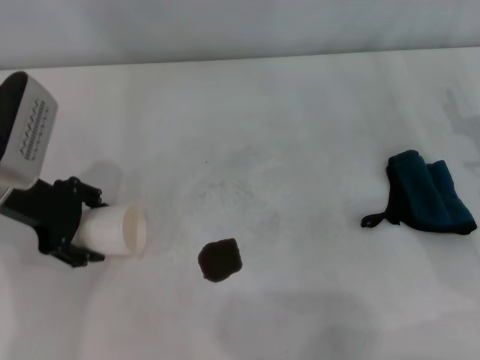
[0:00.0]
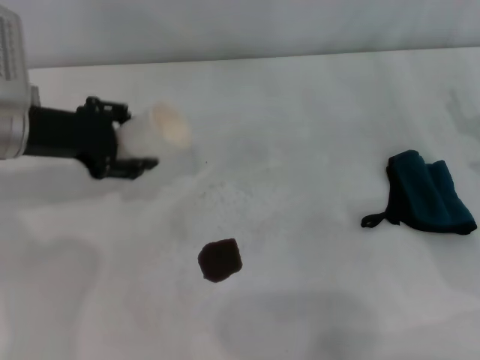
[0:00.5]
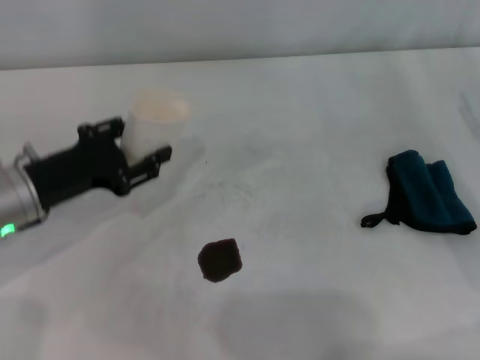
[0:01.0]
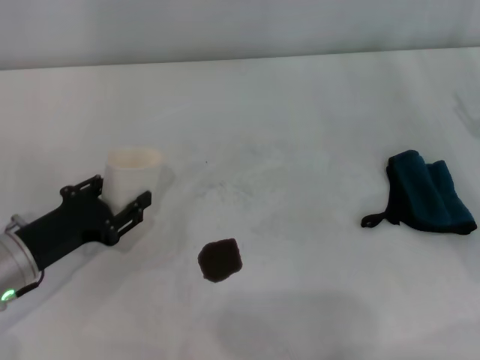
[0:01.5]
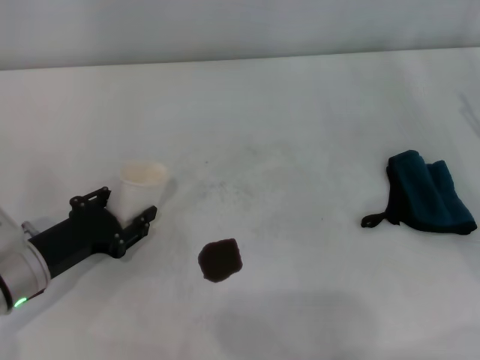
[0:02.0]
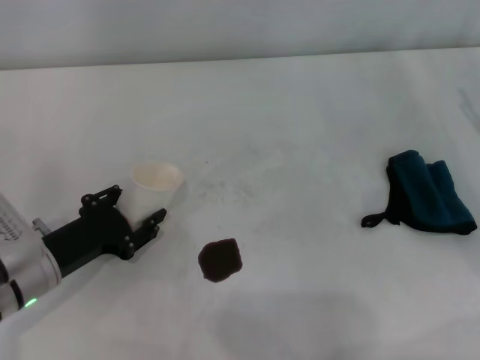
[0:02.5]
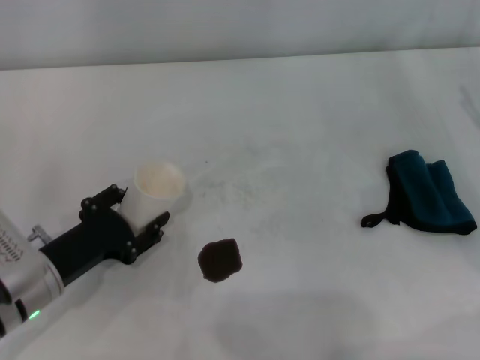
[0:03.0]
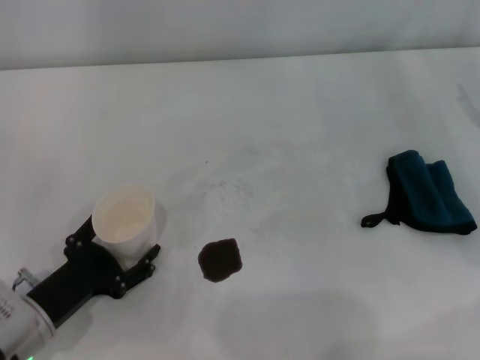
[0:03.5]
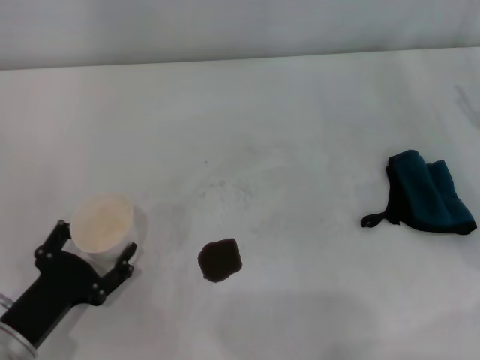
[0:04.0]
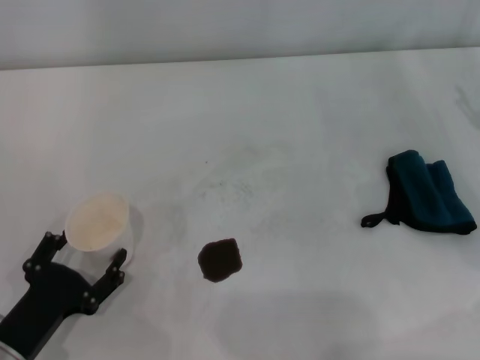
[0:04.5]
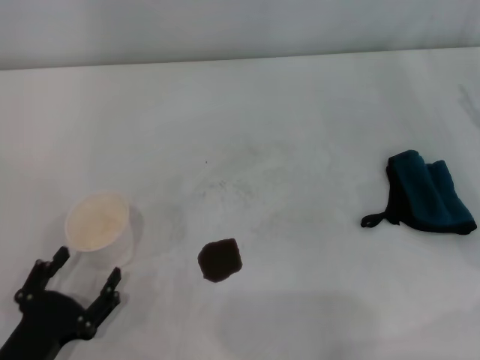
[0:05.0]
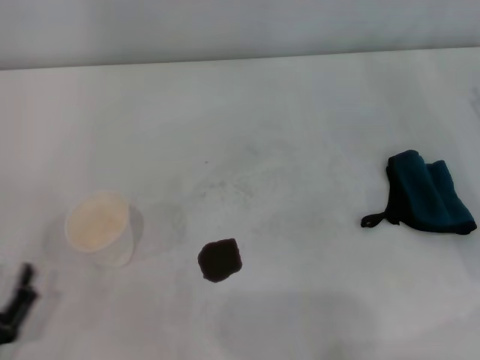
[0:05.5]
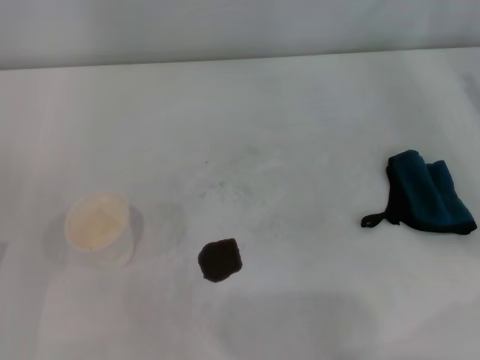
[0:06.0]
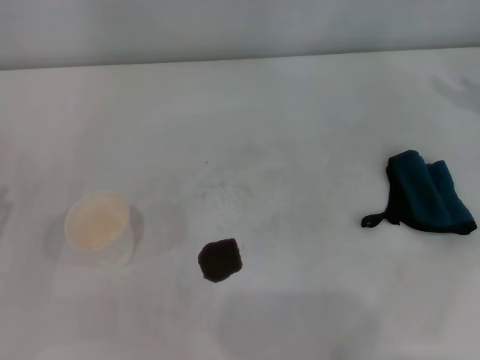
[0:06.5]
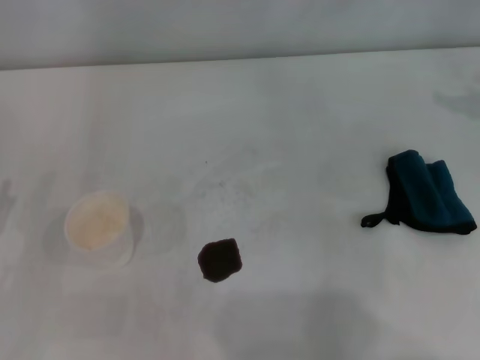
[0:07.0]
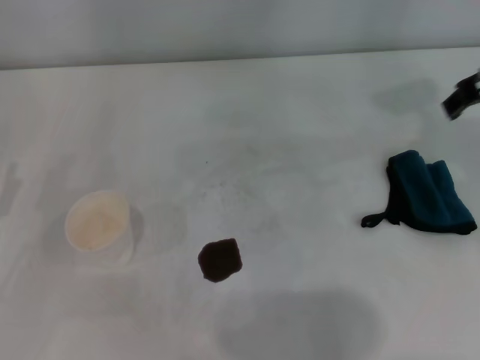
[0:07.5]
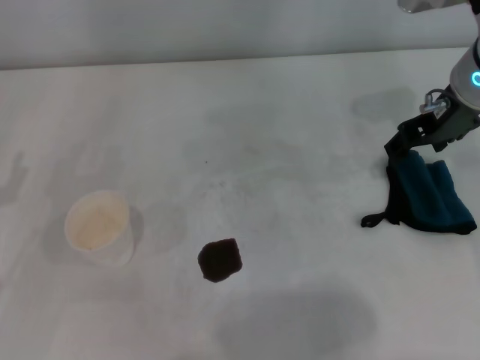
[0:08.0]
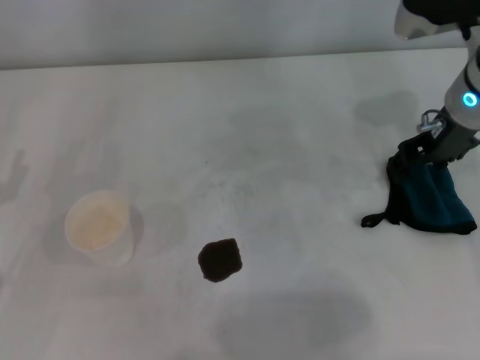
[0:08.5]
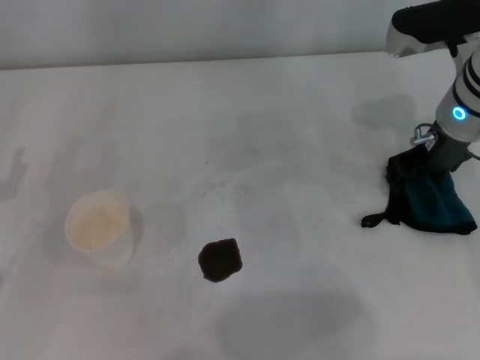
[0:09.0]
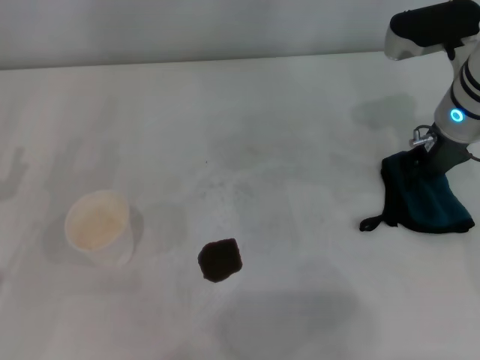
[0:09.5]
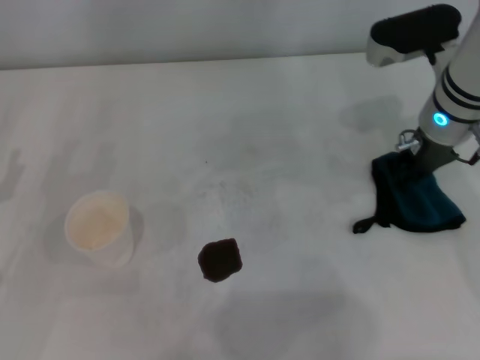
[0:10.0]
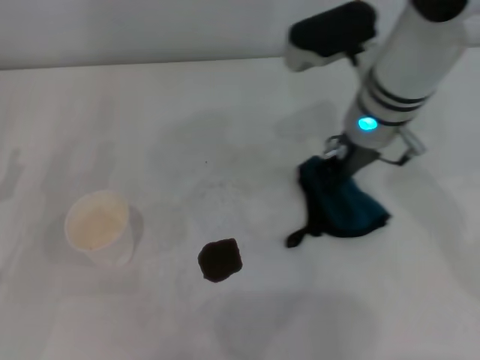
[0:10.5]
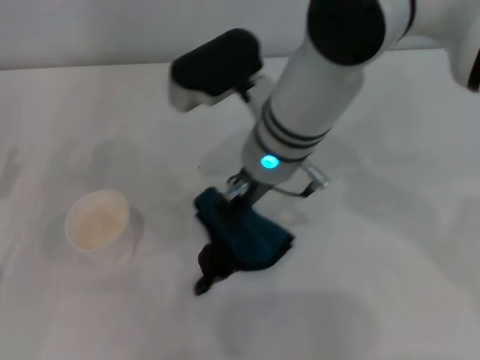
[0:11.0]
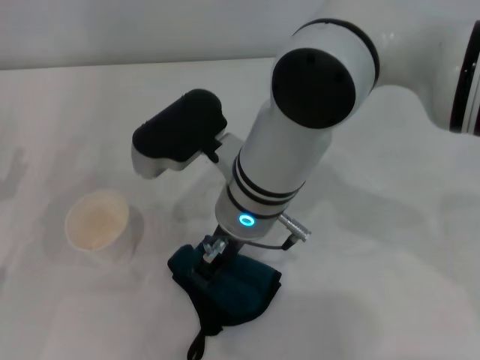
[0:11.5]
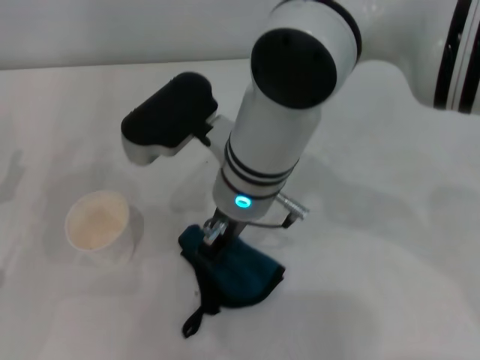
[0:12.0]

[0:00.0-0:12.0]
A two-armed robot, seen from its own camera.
Step, 0:00.0 to 0:04.0: Stand the paper cup upright with the left gripper.
Step, 0:04.5 to 0:09.0: Grasp the rag with the right gripper.
0:00.0 to 0:02.0: The left gripper travels downward and backward by approximately 15 cm, and closes its fingers.
0:02.0 to 0:04.0: The left gripper heads backward, covering roughly 10 cm, and opens.
0:04.0 to 0:06.0: The left gripper moves to the left, approximately 5 cm.
0:06.0 to 0:08.0: The right gripper shifts roughly 20 cm to the left, upward and forward.
0:08.0 to 0:10.0: The right gripper shifts some 5 cm downward, and closes its fingers.
0:10.0 to 0:12.0: The right gripper moves to the left, approximately 20 cm.

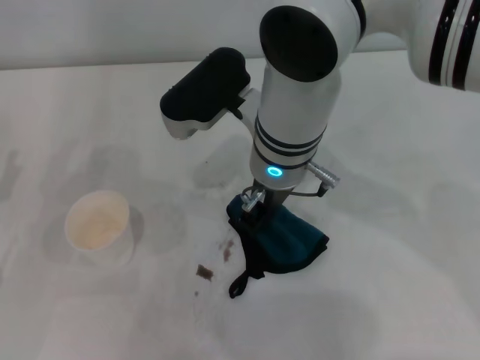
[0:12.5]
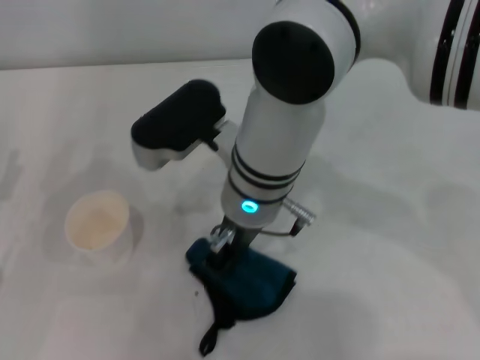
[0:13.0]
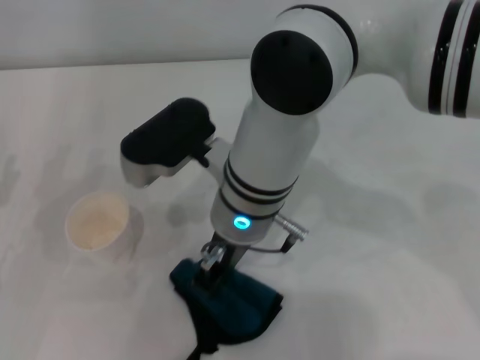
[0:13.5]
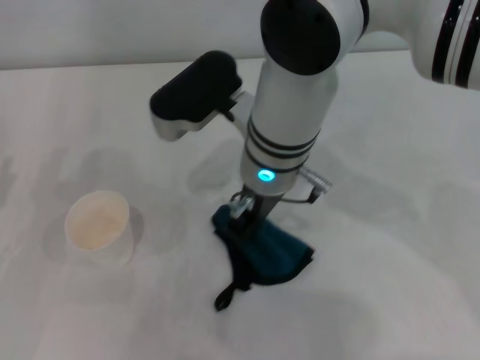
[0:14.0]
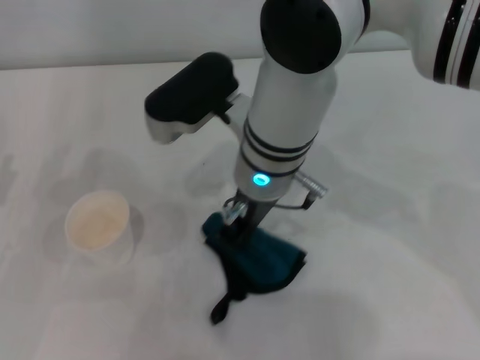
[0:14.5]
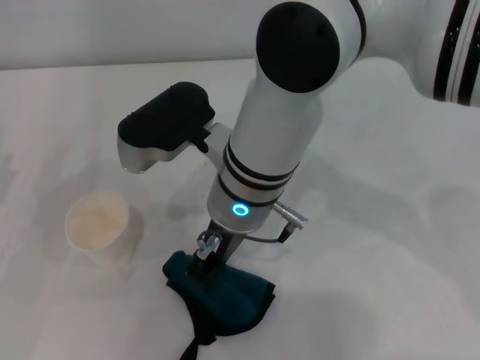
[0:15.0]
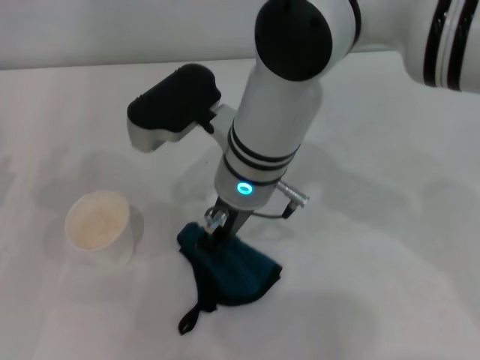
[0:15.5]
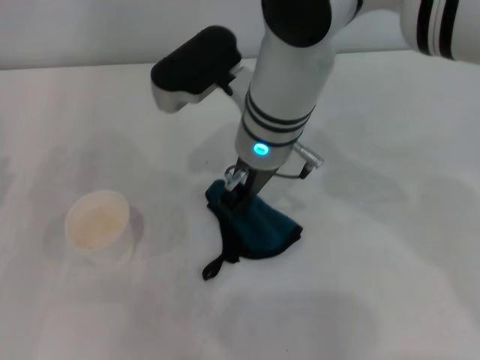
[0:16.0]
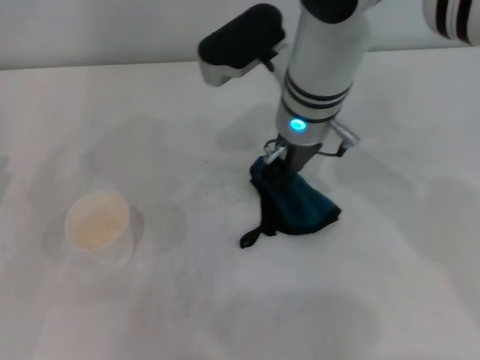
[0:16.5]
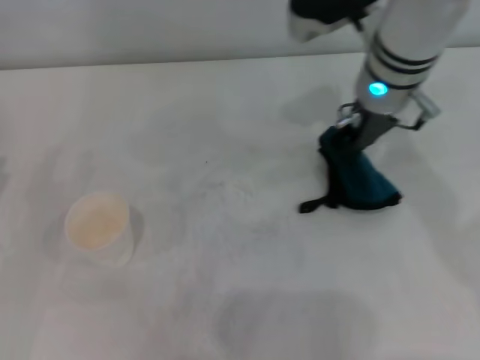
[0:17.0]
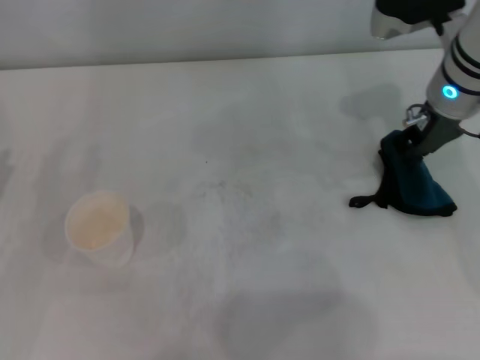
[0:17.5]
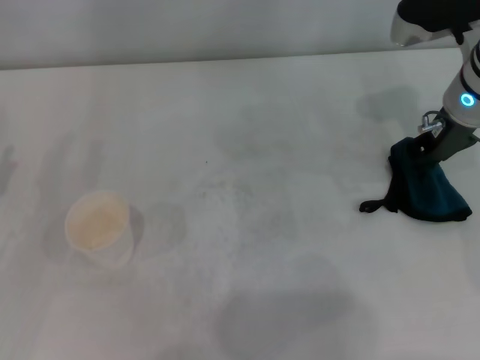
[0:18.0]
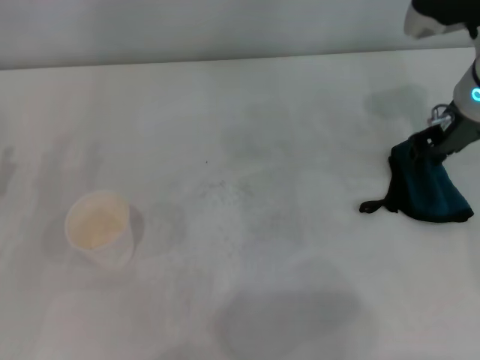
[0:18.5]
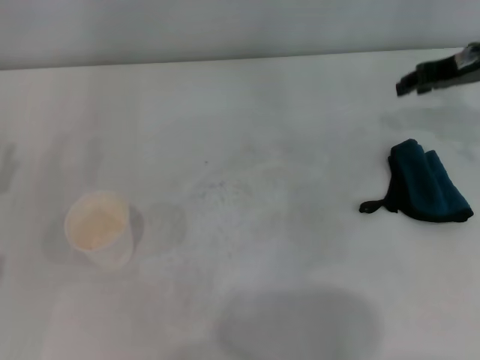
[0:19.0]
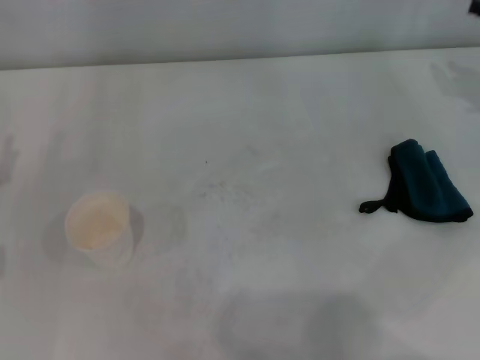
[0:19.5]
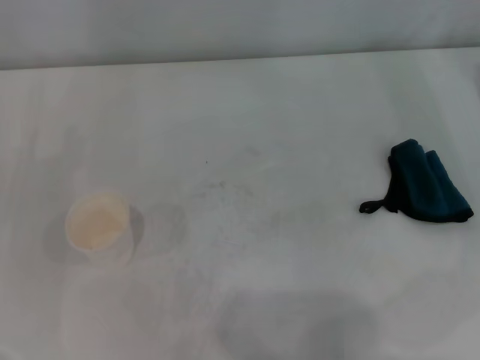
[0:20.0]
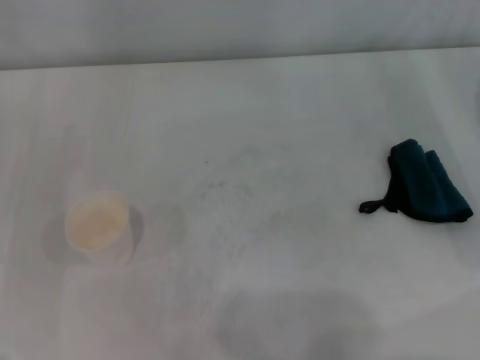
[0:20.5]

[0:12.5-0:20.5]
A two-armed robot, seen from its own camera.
Step, 0:12.5 to 0:16.5: Wipe the stains off the table with the right gripper.
Step, 0:17.0 to 0:18.5: Place the rag on the table with the right gripper.
0:12.5 to 0:14.5: The grippers move only a little.
0:14.5 to 0:16.5: The right gripper is displaced forward by approximately 5 cm.
0:16.5 to 0:18.5: The right gripper travels to the right by about 20 cm.
0:18.5 to 0:20.5: The right gripper shifts approximately 15 cm to the right, backward and downward.

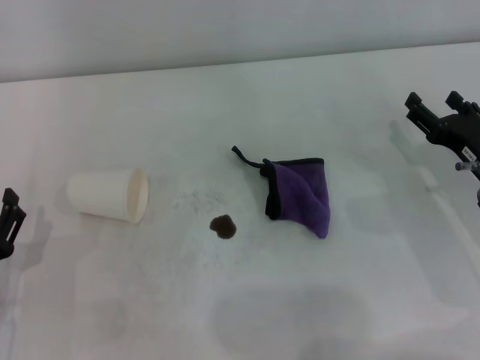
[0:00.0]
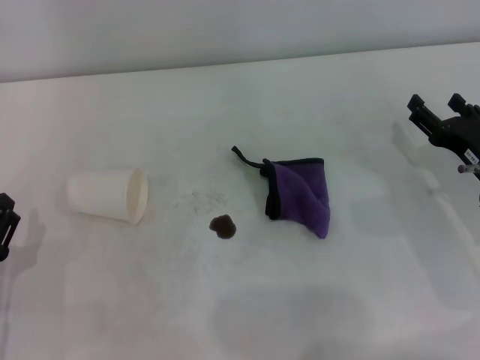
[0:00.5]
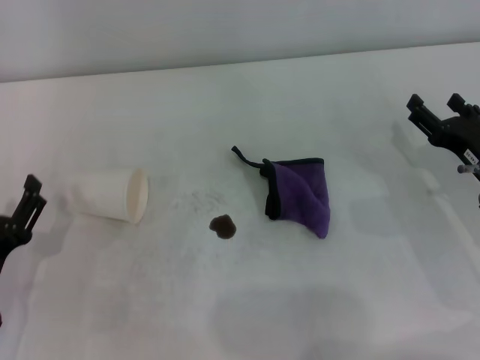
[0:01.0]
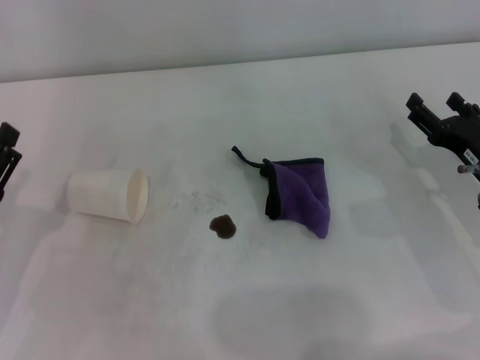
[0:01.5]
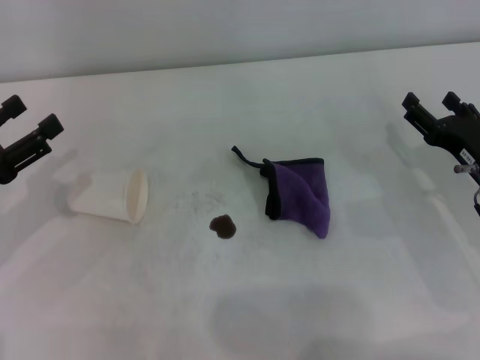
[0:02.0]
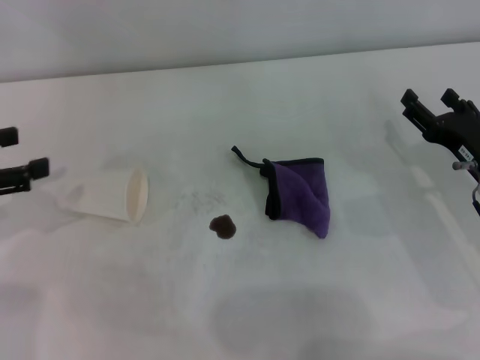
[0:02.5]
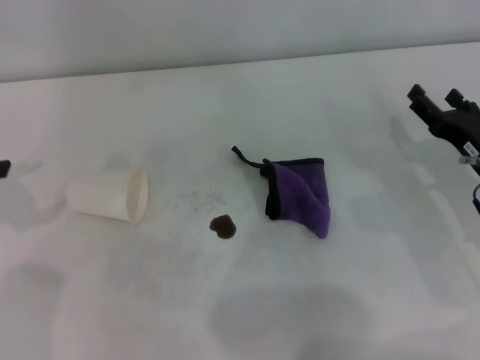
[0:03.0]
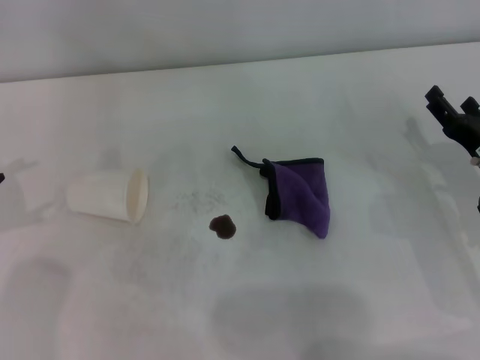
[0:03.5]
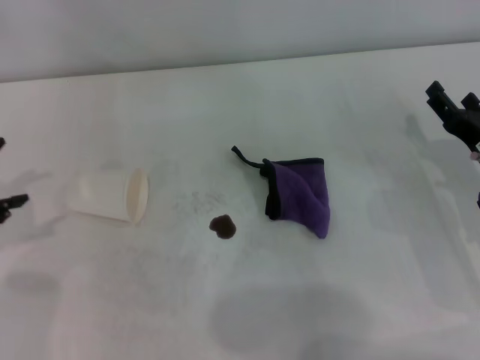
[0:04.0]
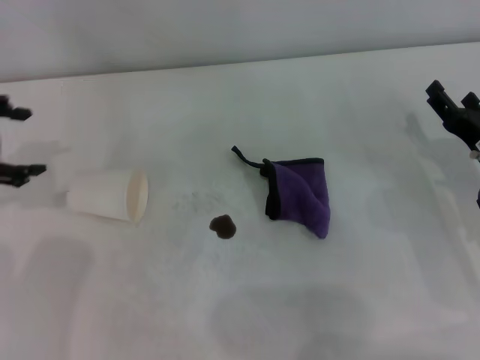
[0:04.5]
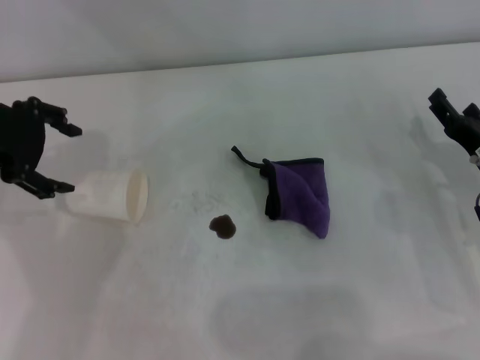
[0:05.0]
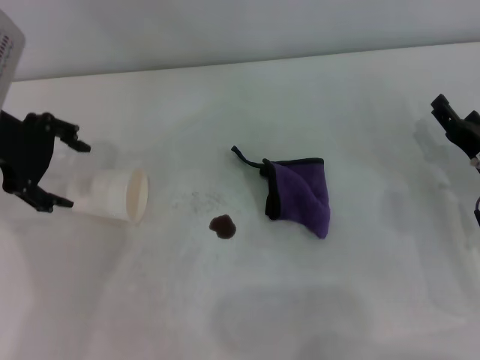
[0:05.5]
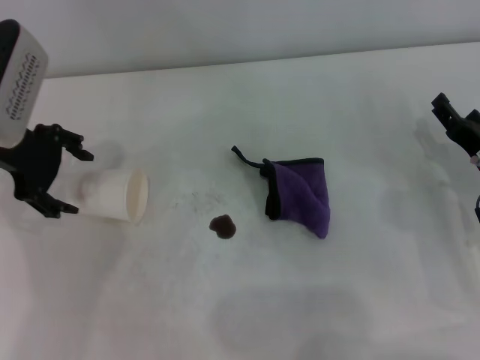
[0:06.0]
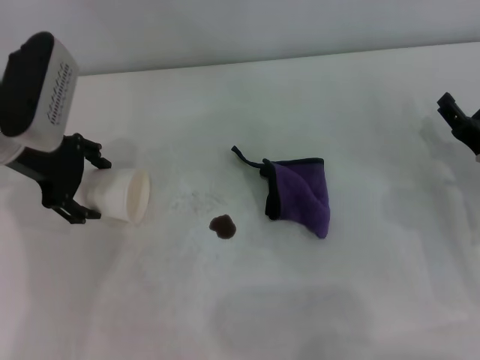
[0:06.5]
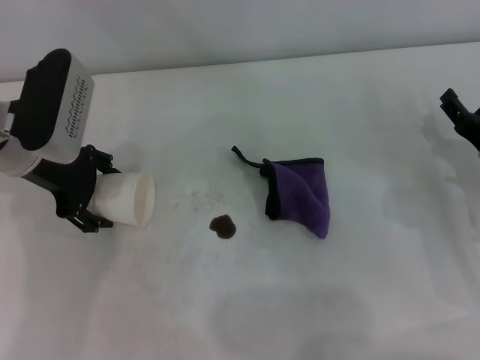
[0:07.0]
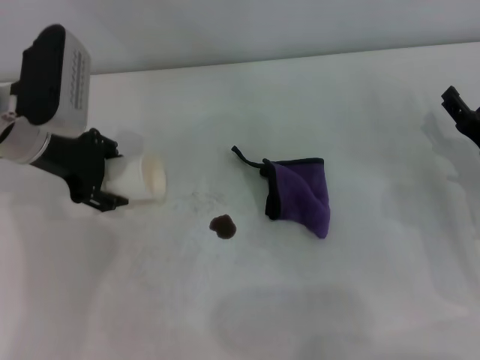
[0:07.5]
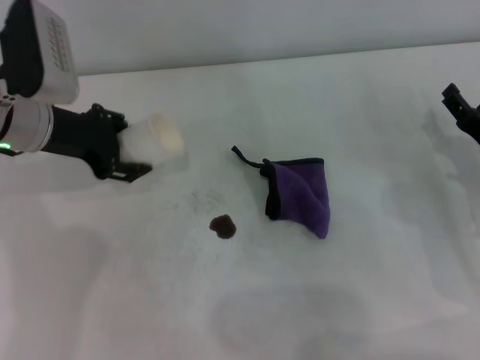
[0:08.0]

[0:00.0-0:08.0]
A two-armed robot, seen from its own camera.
Step, 0:00.0 to 0:06.5: Grasp the paper cup with the left gripper.
0:00.0 to 0:02.0: The left gripper goes roughly 15 cm forward, upward and to the left.
0:02.0 to 0:04.0: The left gripper shifts about 5 cm upward.
0:04.0 to 0:06.0: The left gripper heads to the right and forward, covering roughly 15 cm.
0:06.0 to 0:08.0: The left gripper closes.
